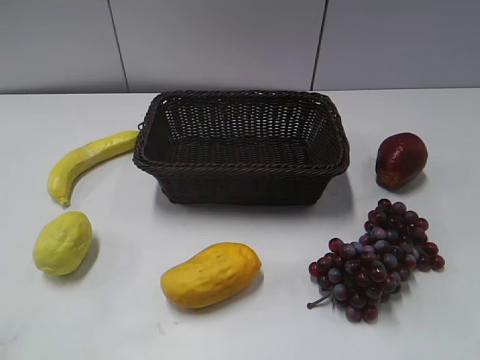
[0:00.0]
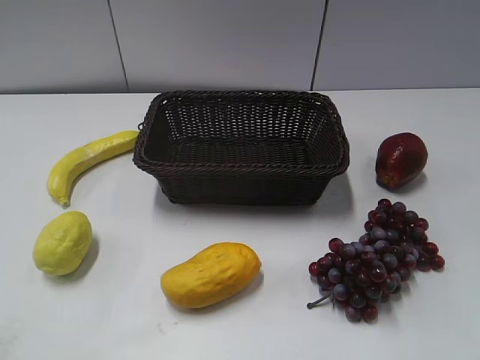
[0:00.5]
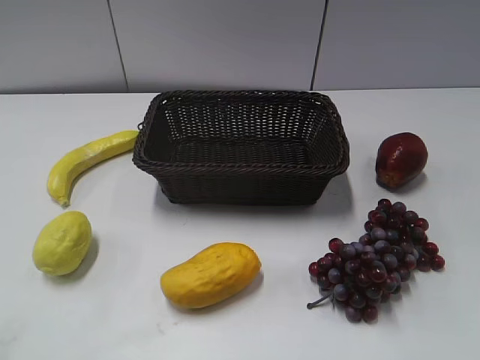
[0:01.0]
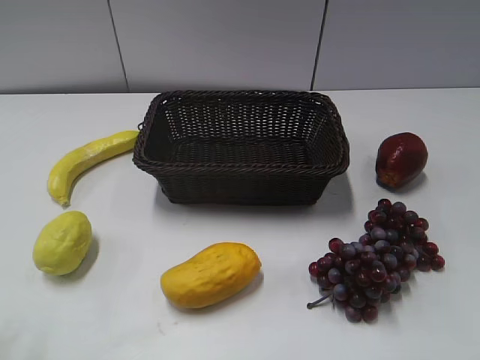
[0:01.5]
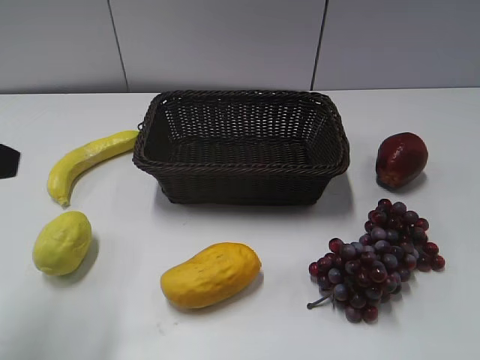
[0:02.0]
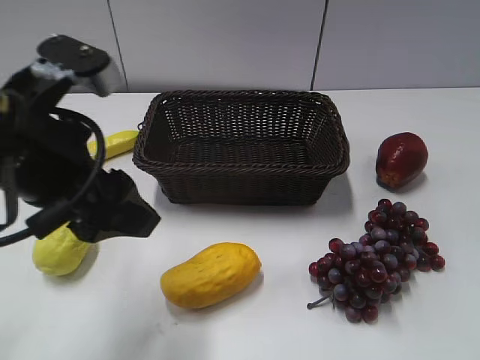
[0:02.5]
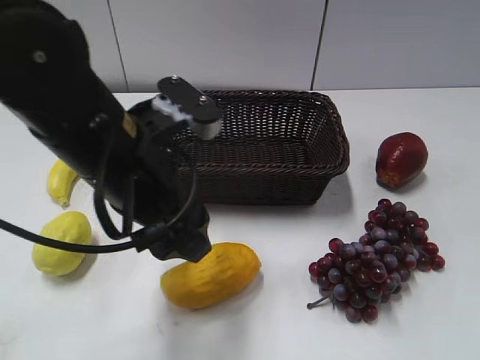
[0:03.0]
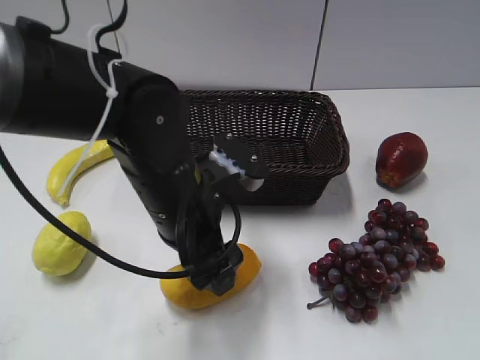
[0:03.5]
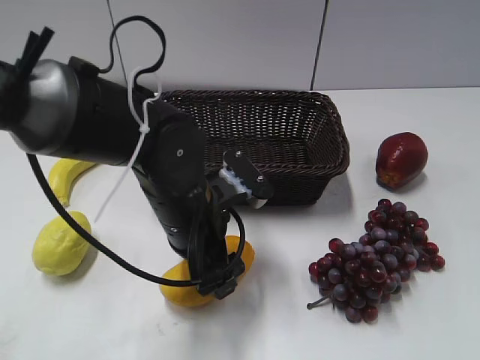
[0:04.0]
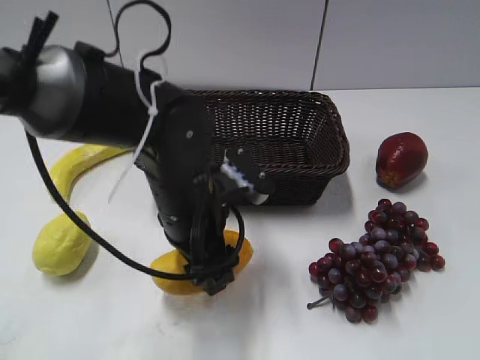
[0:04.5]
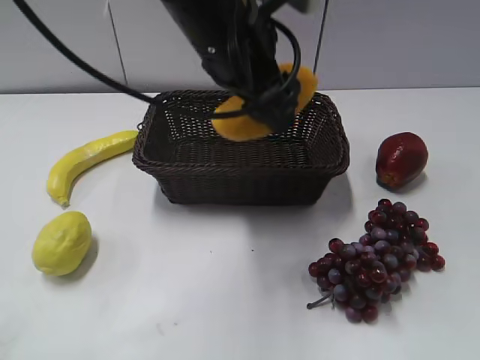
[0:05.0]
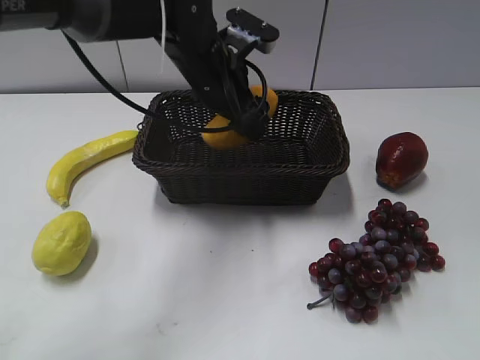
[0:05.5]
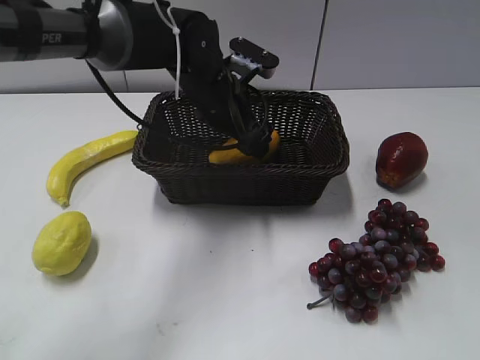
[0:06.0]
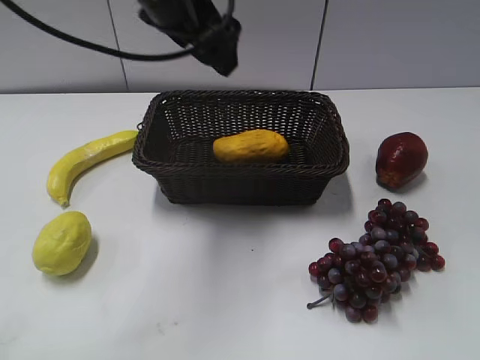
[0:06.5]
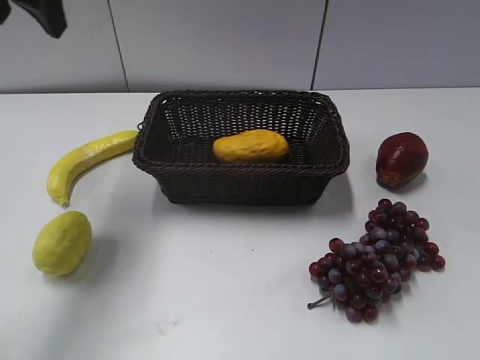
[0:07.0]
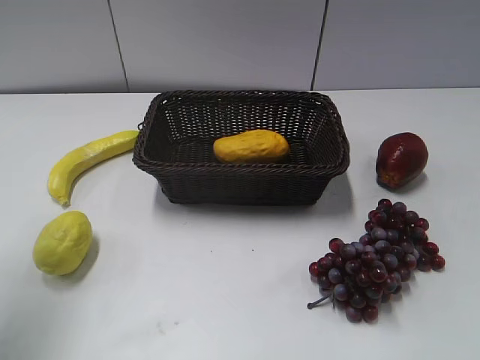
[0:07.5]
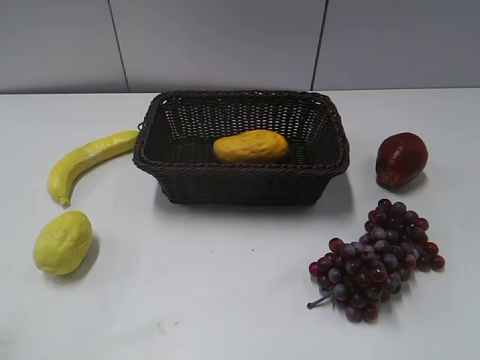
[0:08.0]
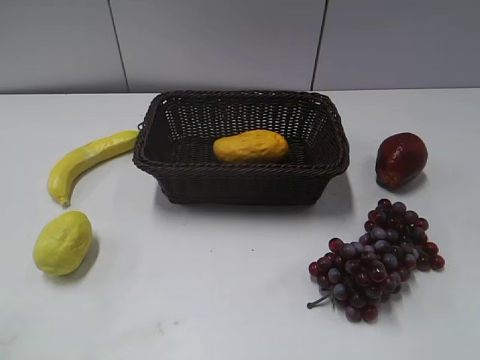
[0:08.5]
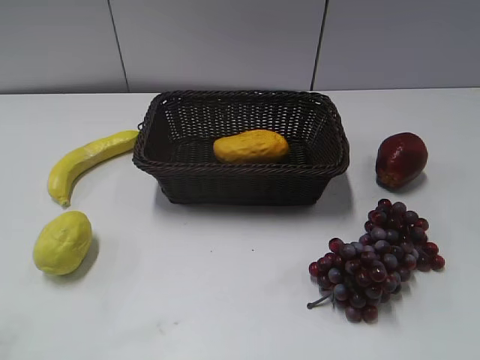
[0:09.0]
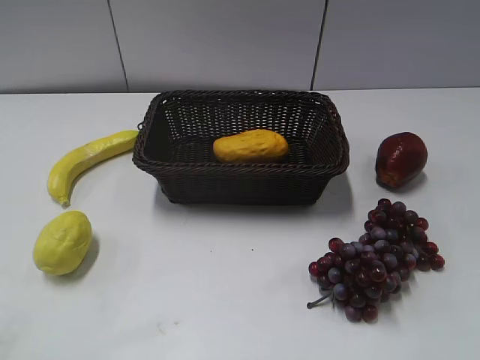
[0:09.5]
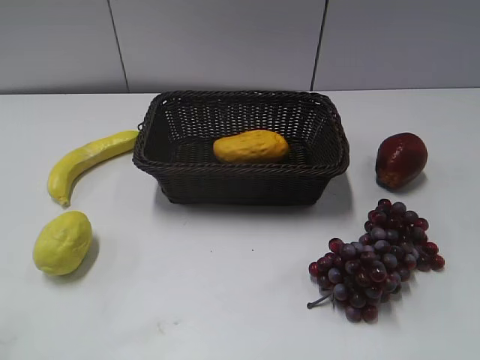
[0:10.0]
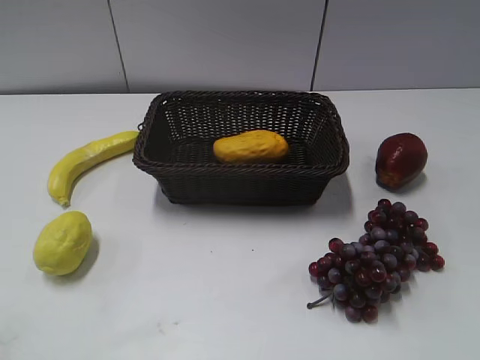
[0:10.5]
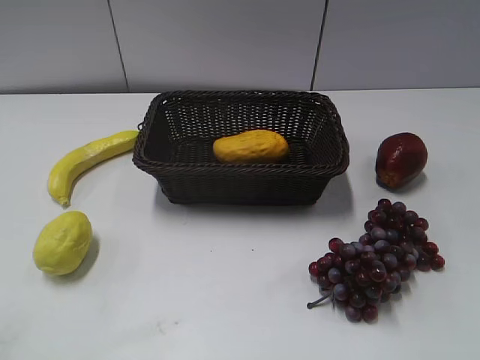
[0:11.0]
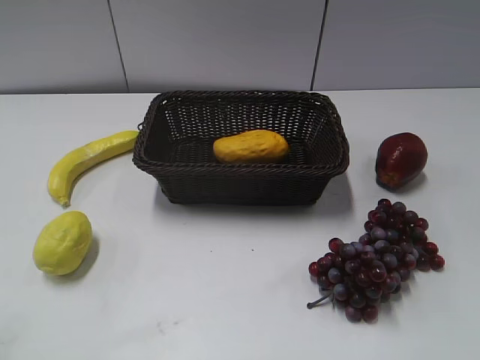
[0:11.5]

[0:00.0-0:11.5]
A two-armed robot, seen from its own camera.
Step, 0:02.0 to 0:04.0: Grasp the mango with left gripper.
Step, 0:04.5 to 0:06.0: Place the mango in the basket with left gripper.
0:02.0 to 0:04.0: The left gripper is displaced to the right and downward by approximately 25 cm.
0:04.0 to 0:06.0: The left gripper heads forward, covering some 15 cm, and travels upward and back again, roughly 15 cm each way.
0:06.0 to 0:07.5: The left gripper moves to the left, upward and backward, about 35 cm.
0:07.5 to 0:09.5: The left gripper shifts approximately 25 cm backward, and closes.
0:09.5 to 0:11.5: Both grippers stay about where they are.

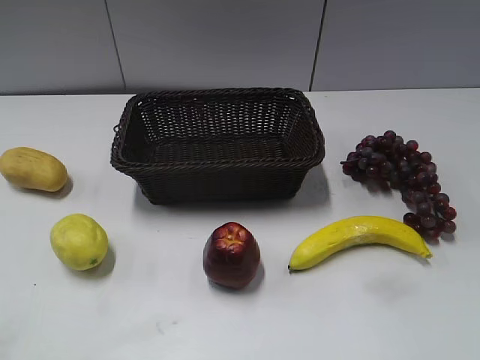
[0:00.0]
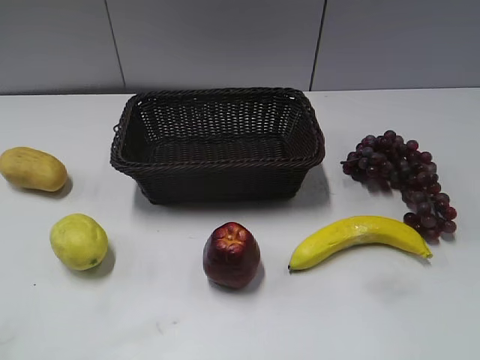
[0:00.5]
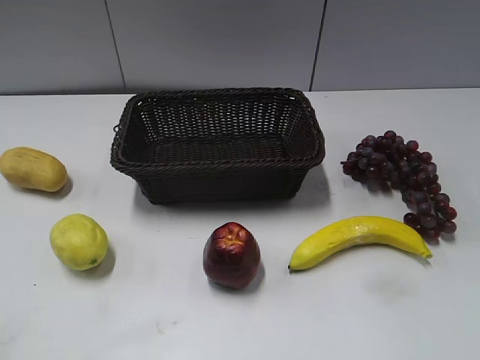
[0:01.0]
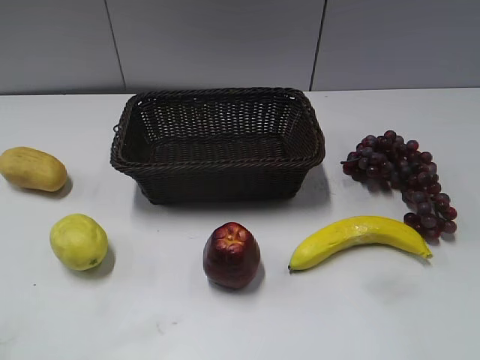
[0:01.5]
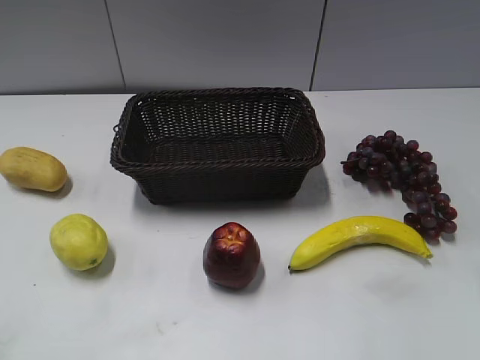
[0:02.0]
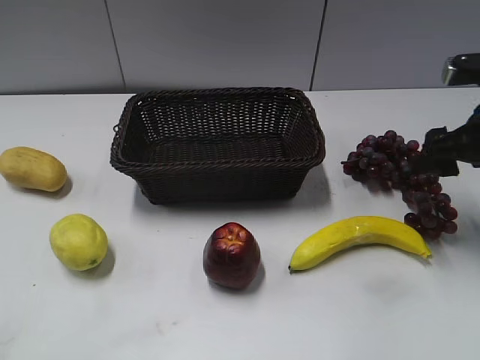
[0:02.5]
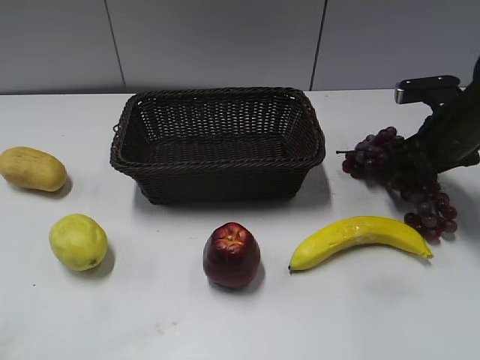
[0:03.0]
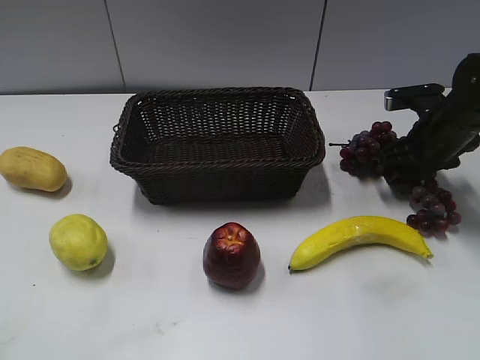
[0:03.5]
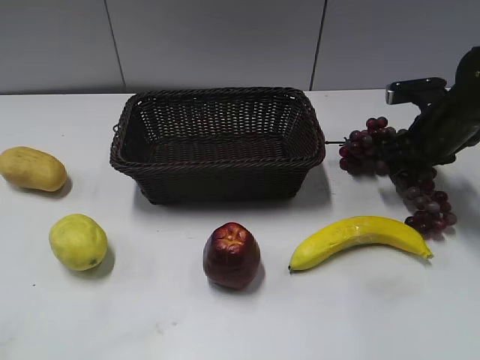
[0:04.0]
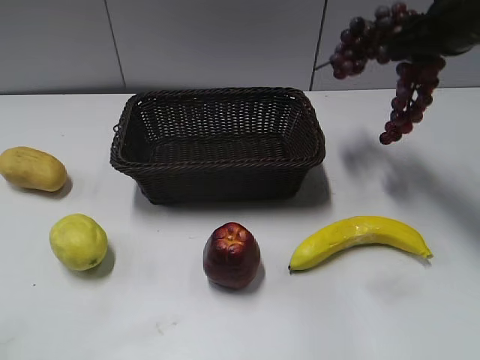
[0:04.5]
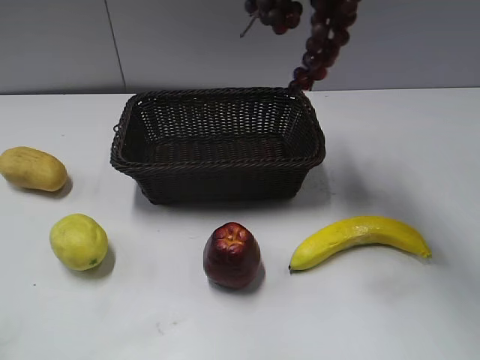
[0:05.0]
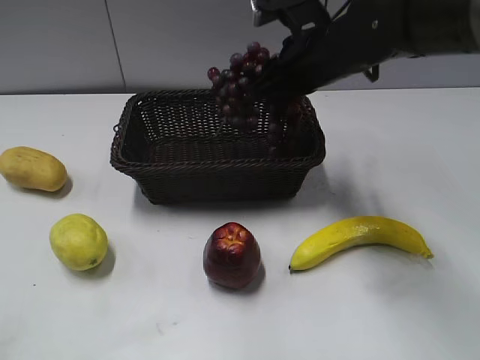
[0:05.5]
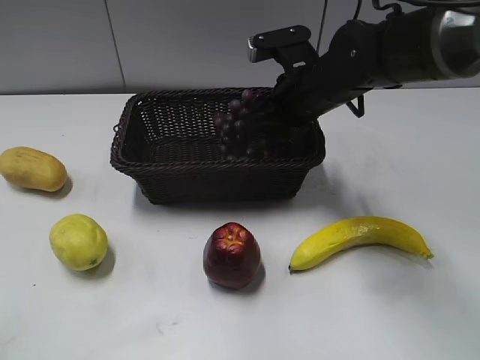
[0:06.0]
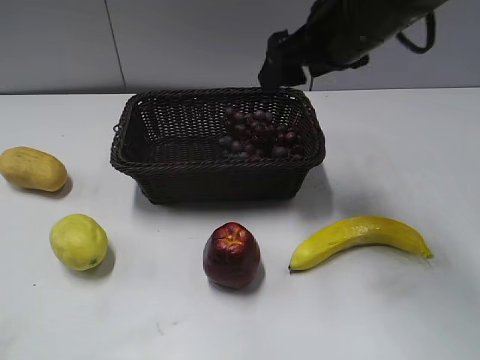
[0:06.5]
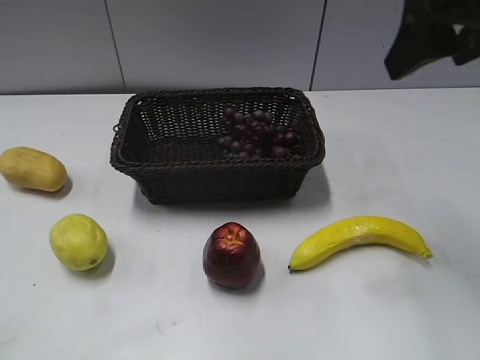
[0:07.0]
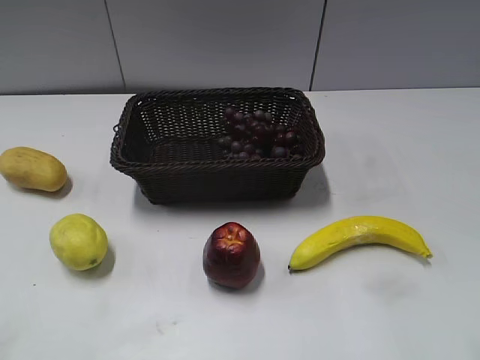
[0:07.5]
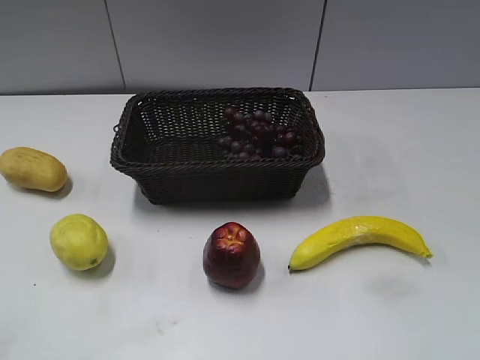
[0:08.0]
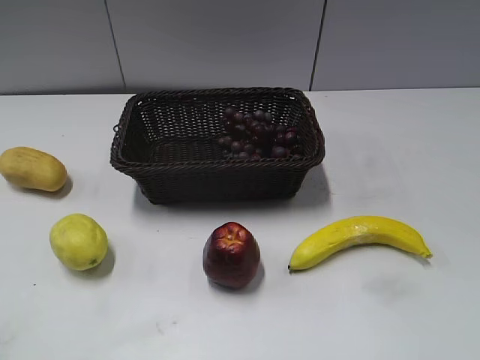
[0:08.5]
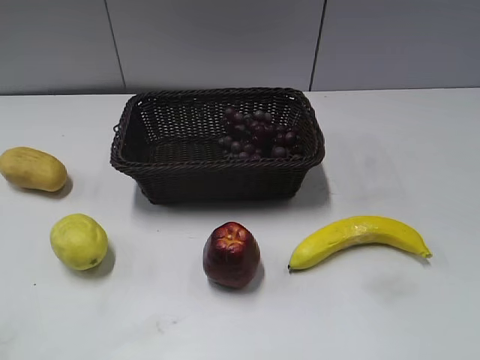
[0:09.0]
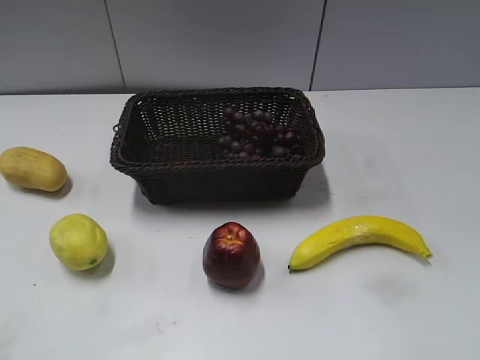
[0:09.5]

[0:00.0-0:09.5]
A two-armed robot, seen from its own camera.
Step, 0:02.5 to 0:03.5: Grasp the grape with right gripper.
Step, 0:04.0 to 0:06.0: Place the grape in the basket with right gripper.
0:02.0 to 0:04.0: The right gripper moves forward and downward, some 30 cm, and closes up.
0:04.0 to 0:05.5: The right gripper moves to the left and upward, approximately 20 cm.
0:05.5 to 0:07.5: The right gripper shifts about 30 cm backward and to the right, and opens its fingers.
